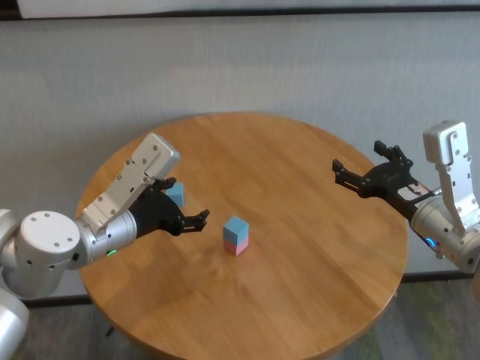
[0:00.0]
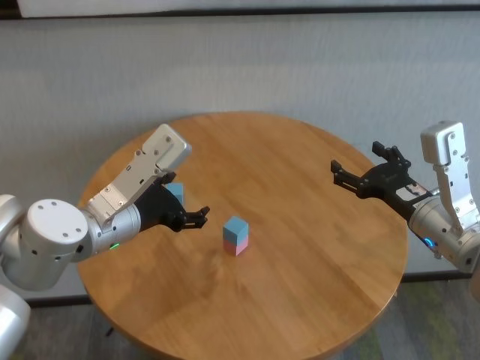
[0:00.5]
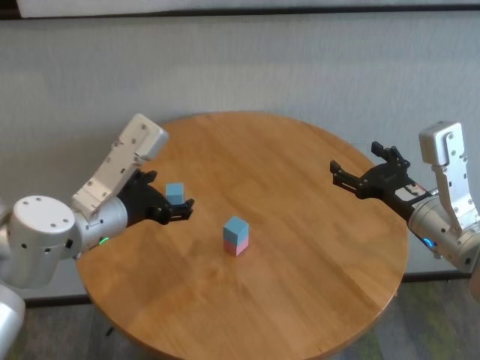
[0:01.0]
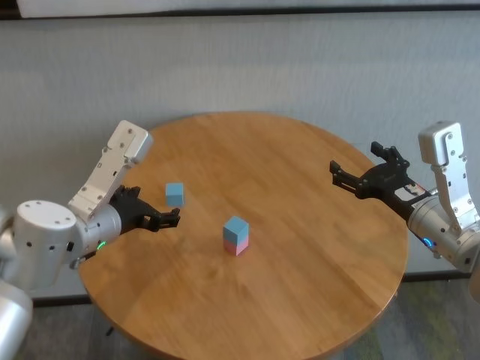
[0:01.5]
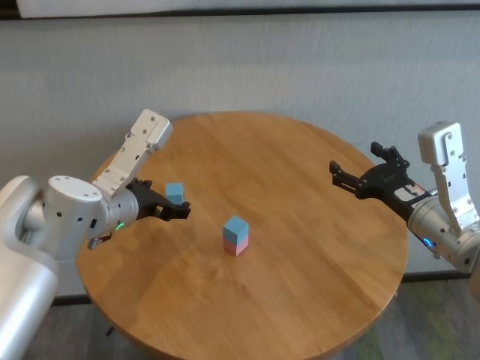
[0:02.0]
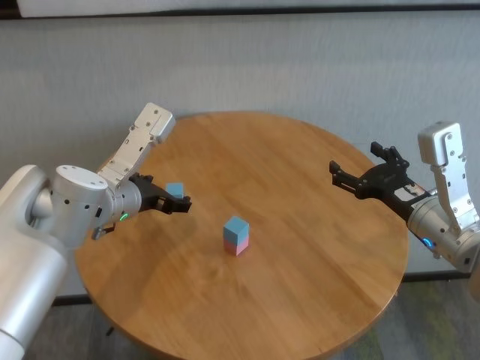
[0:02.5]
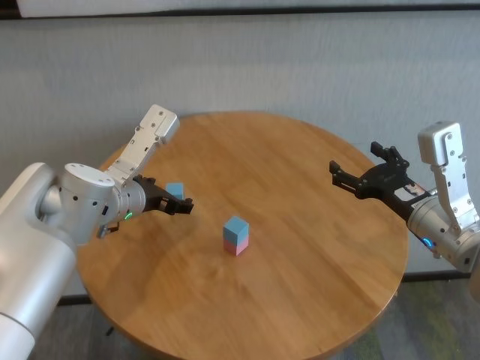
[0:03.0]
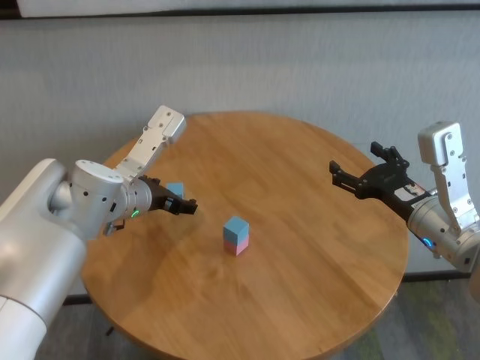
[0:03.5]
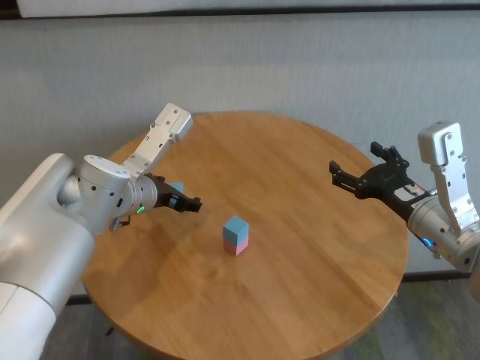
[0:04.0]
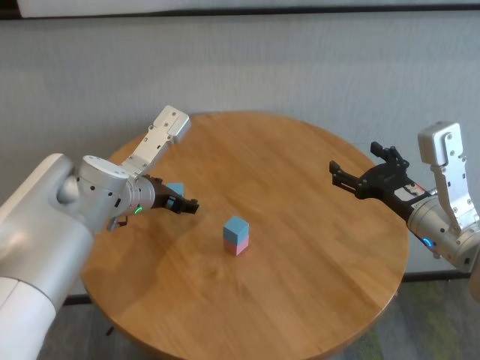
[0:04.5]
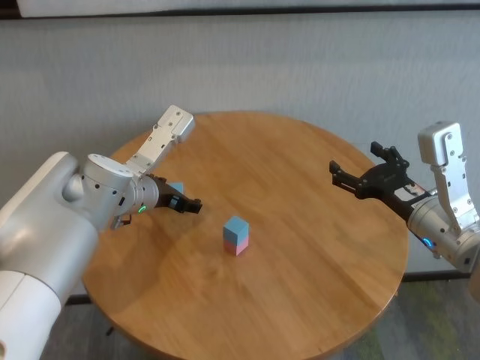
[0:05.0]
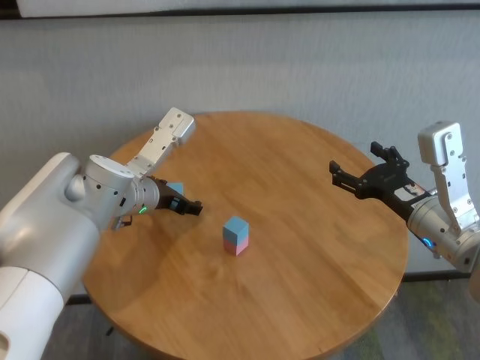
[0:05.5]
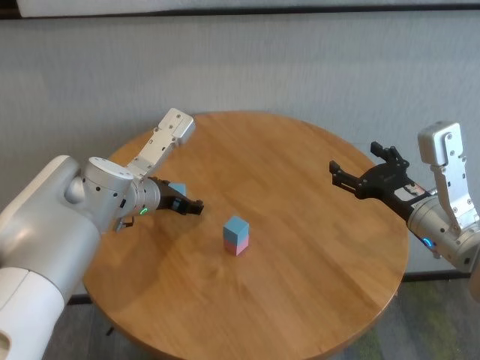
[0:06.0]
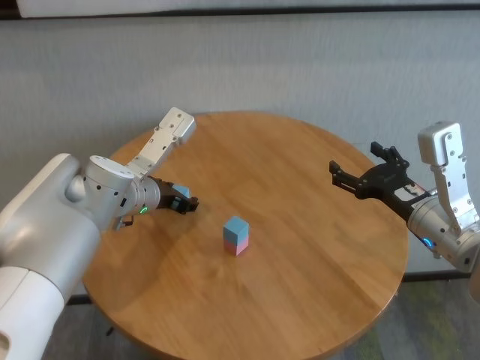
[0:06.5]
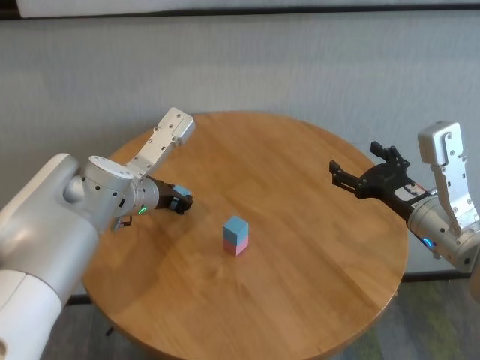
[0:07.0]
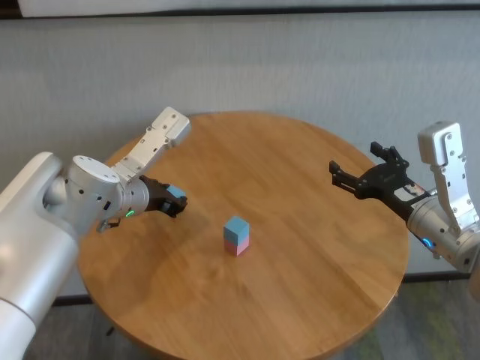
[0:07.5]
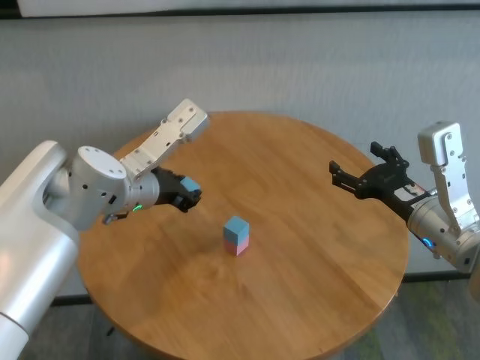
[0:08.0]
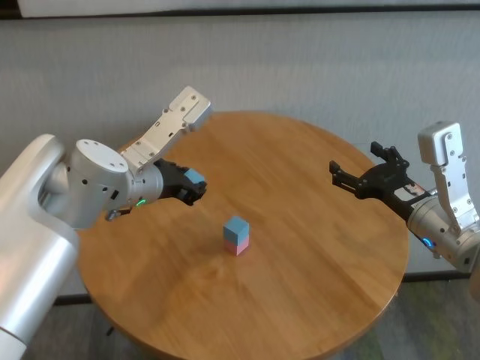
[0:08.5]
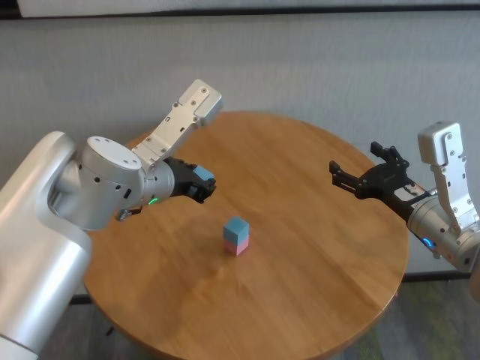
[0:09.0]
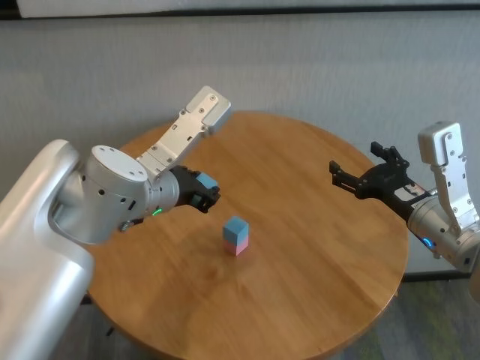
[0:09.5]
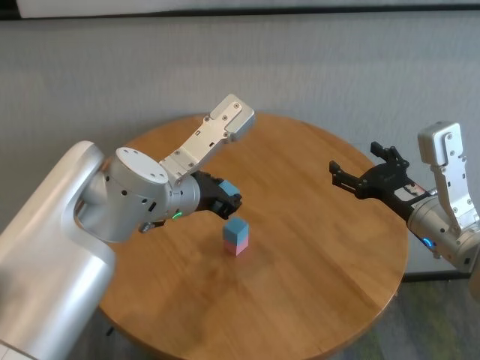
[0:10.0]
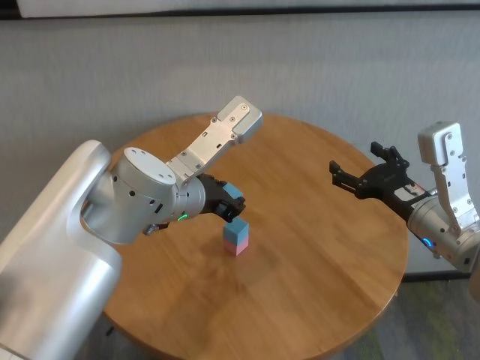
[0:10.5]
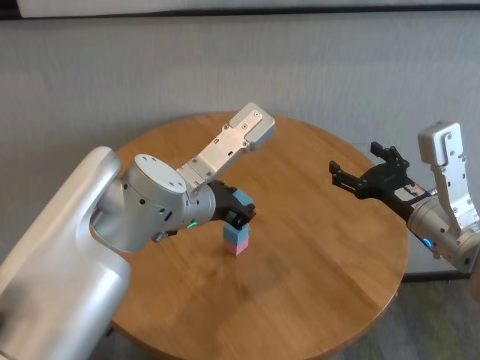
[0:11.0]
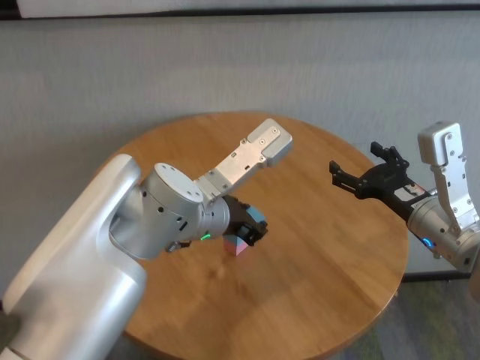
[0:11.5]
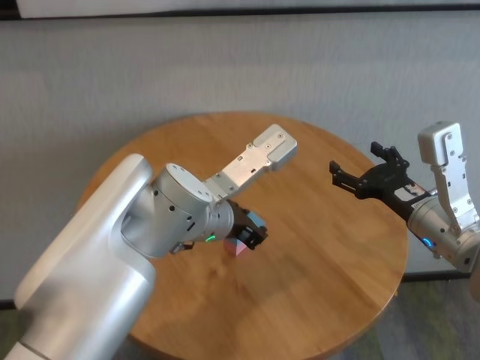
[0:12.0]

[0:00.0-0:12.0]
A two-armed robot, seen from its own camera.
Task of the whole recording: stack building blocks on the table.
Step, 0:00.0 to 0:06.5: Grasp the blue building block with left gripper.

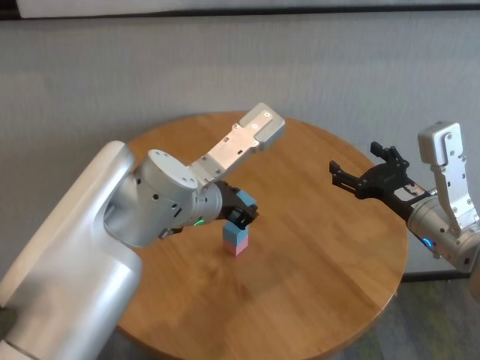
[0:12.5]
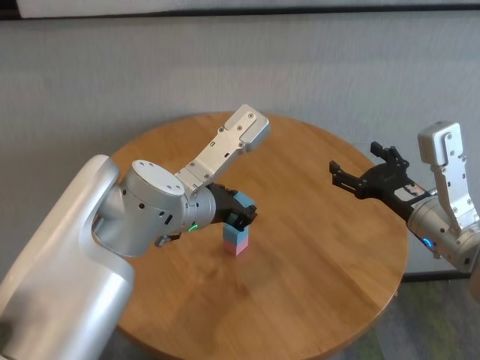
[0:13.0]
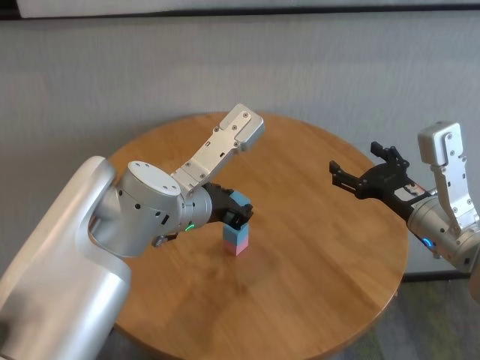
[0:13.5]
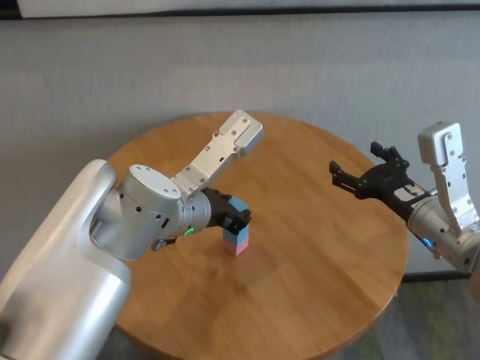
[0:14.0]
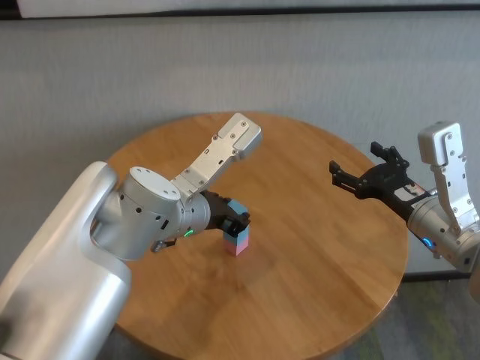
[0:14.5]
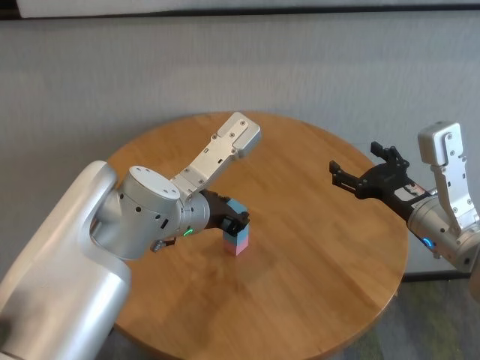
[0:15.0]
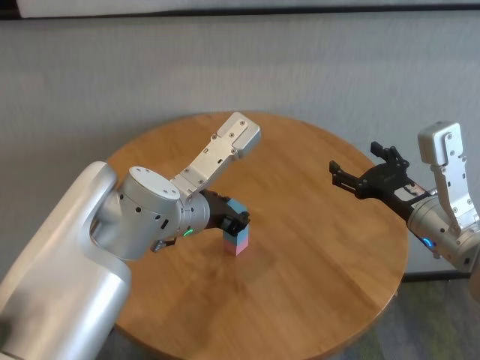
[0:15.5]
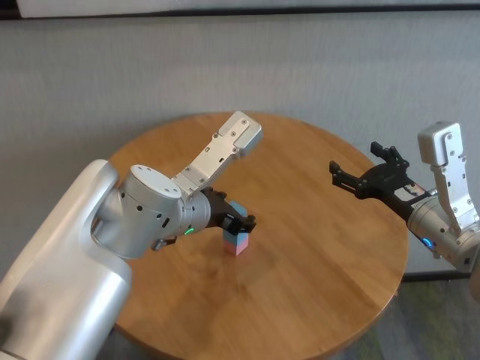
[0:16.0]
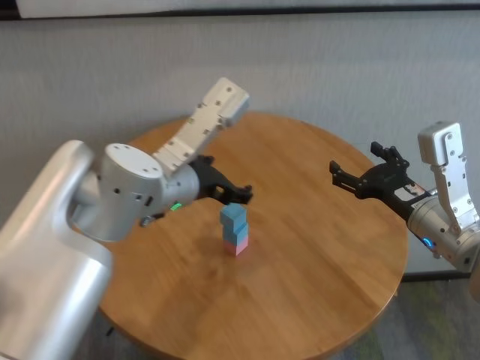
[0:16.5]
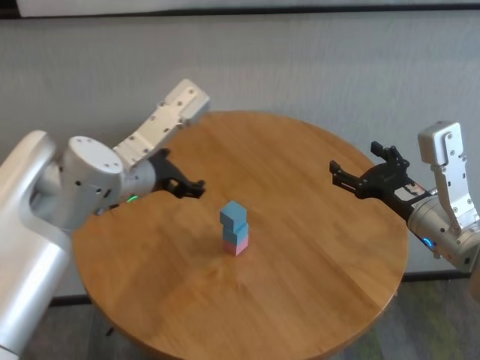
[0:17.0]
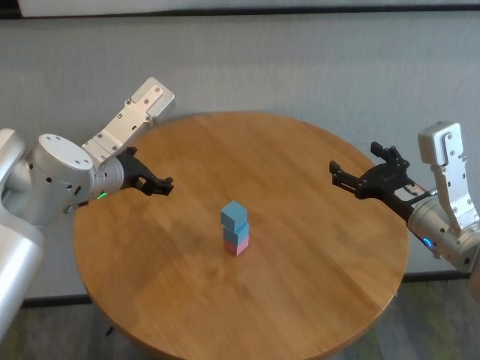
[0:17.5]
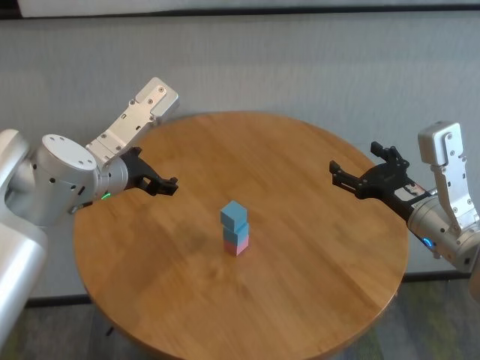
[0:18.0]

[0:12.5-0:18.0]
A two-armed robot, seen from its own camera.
Task of the whole recording: stack building blocks on the table.
Step, 0:12.5 to 0:15.5: Place the blue building block on the blue building blocks with left gripper.

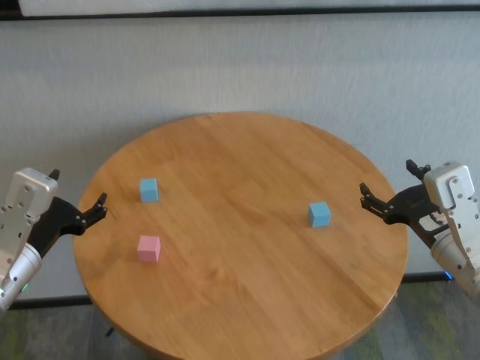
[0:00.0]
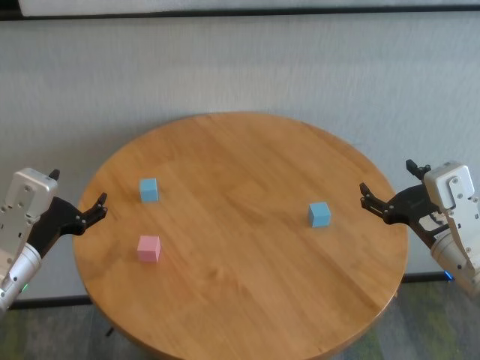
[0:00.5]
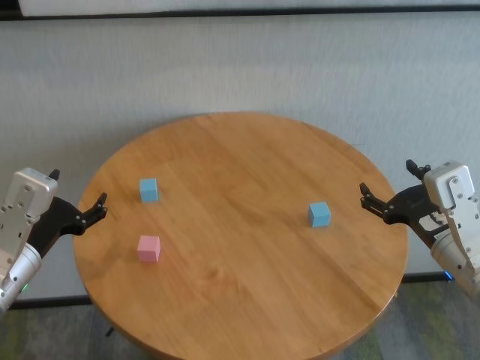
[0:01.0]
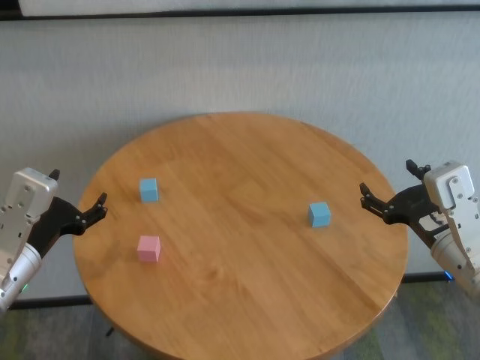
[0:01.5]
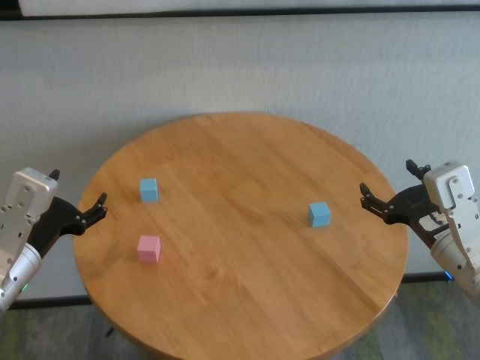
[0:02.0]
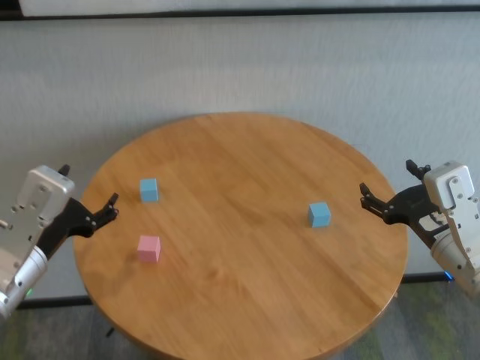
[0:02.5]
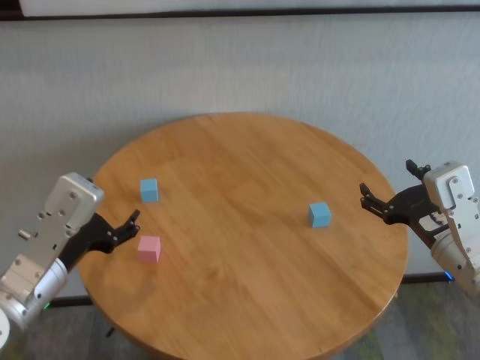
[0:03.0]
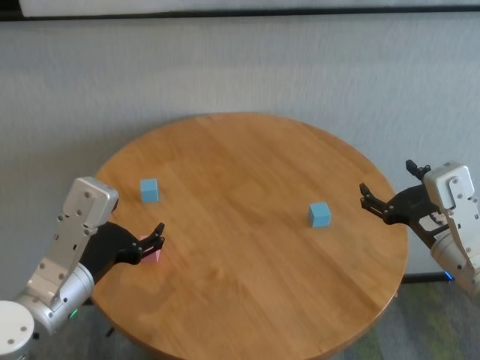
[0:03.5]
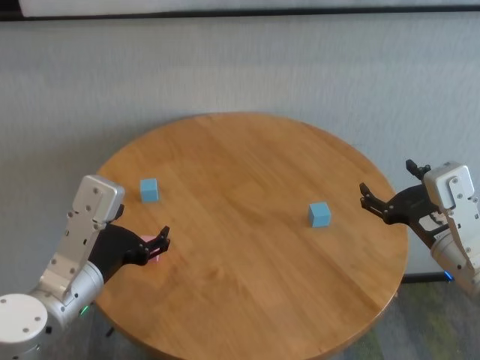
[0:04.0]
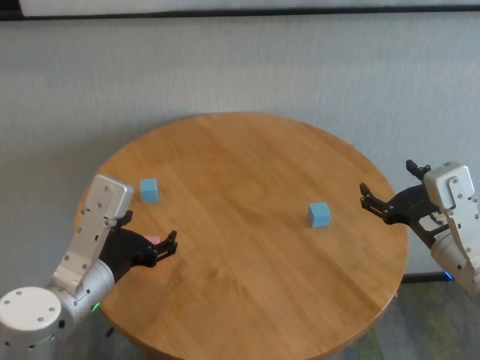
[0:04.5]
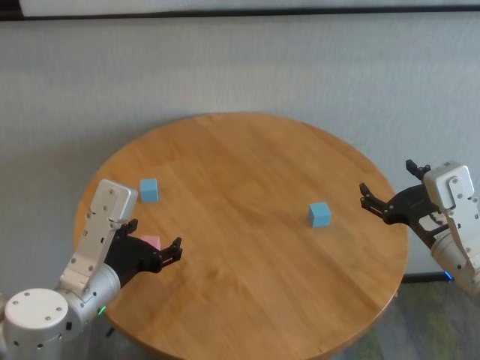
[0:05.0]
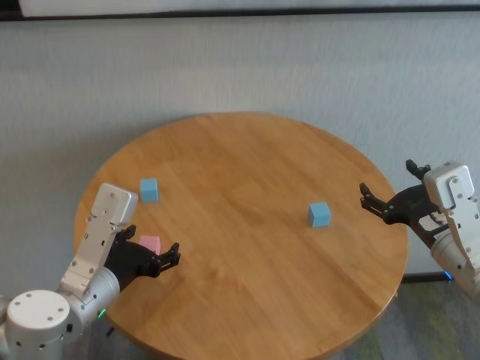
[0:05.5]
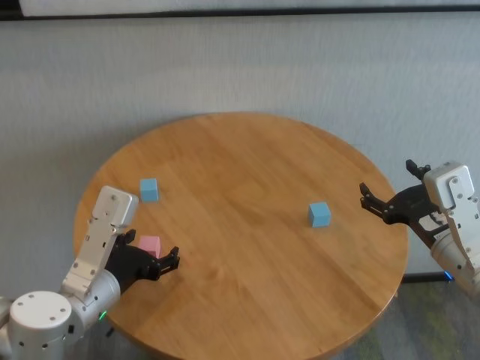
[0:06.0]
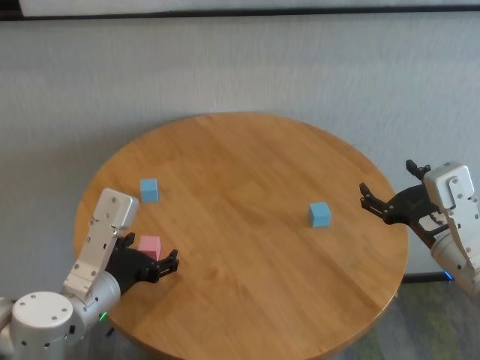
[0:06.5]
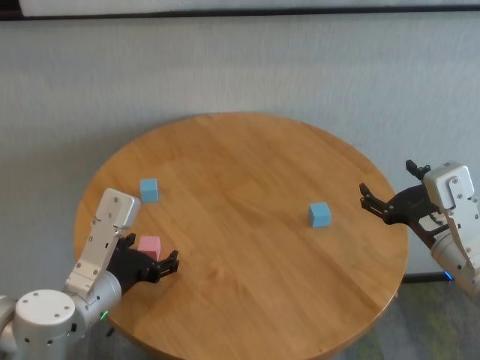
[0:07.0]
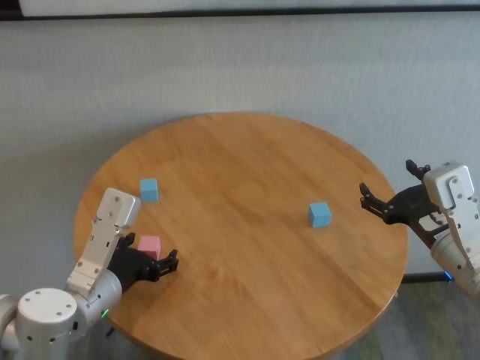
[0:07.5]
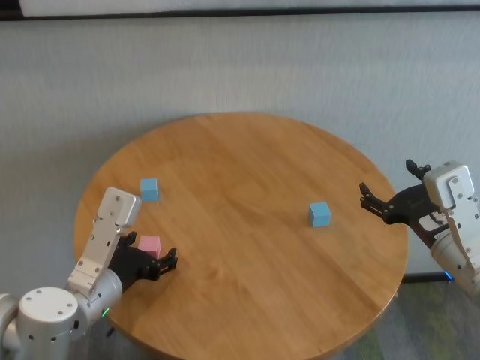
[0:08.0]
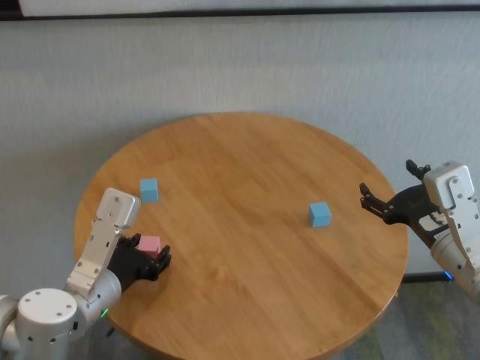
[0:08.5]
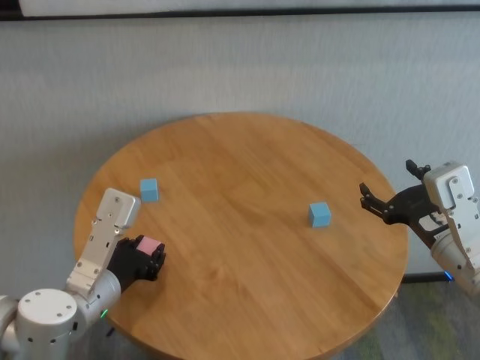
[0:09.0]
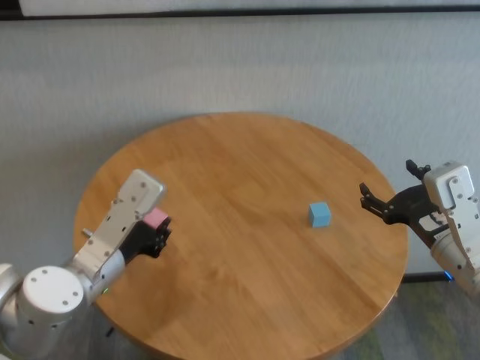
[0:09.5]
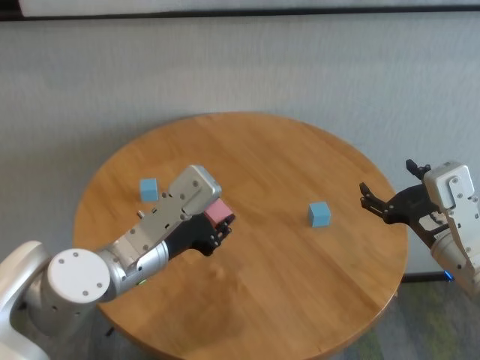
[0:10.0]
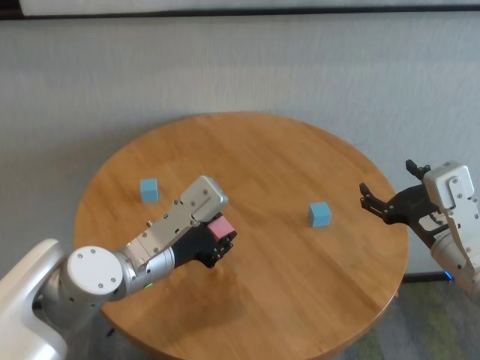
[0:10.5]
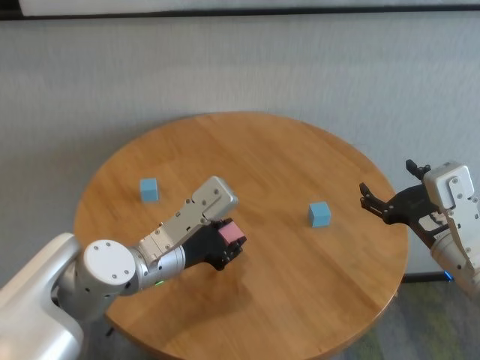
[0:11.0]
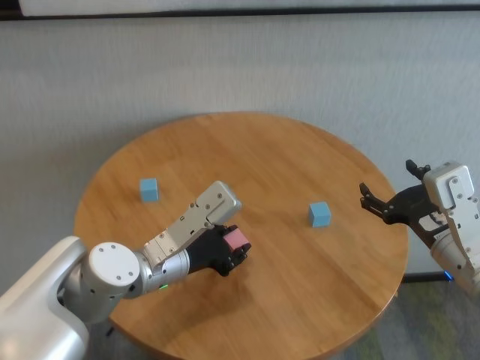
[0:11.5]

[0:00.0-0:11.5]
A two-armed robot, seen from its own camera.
Task of the whole recording: stack building blocks on the table.
Step, 0:00.0 to 0:08.5: Grasp the pink building block with left gripper.
